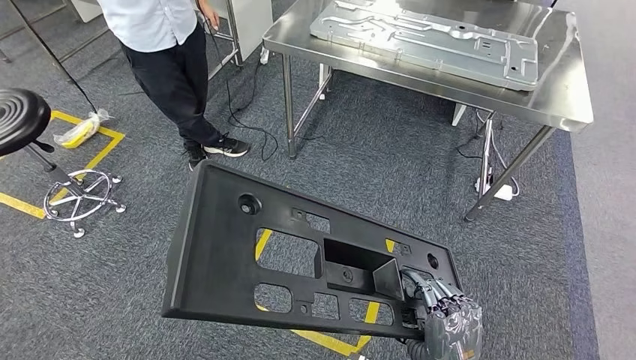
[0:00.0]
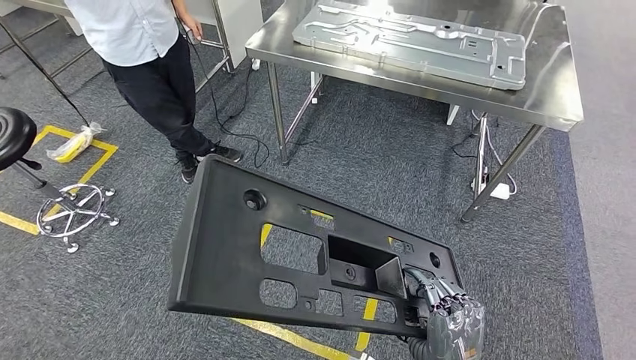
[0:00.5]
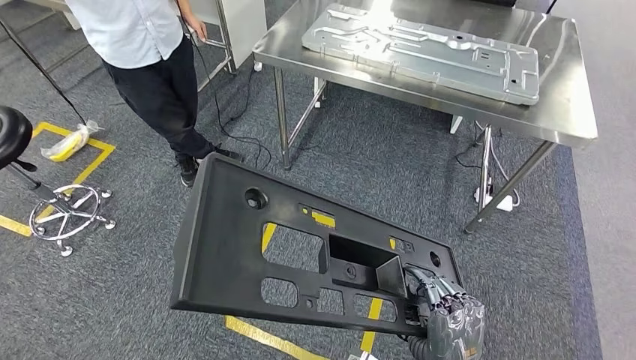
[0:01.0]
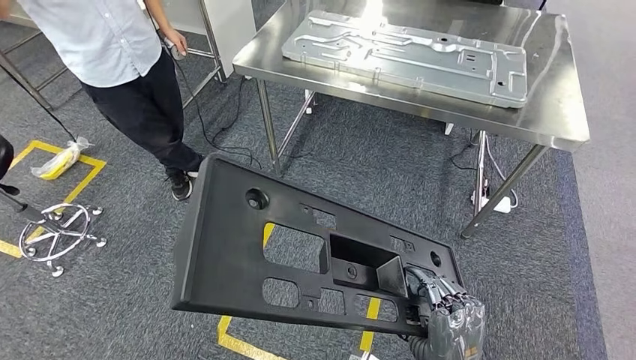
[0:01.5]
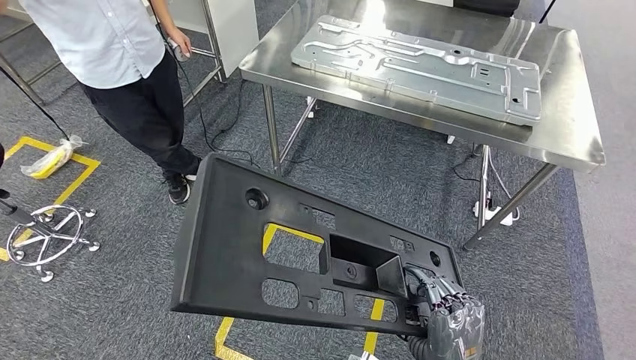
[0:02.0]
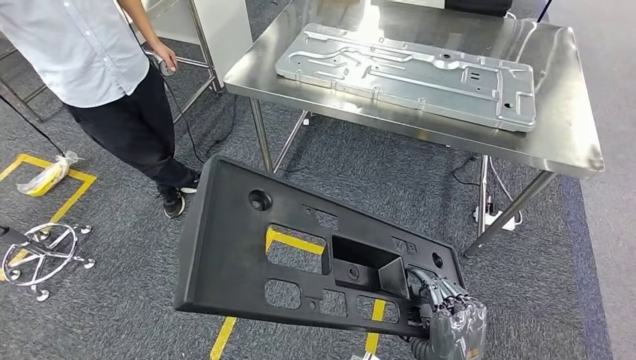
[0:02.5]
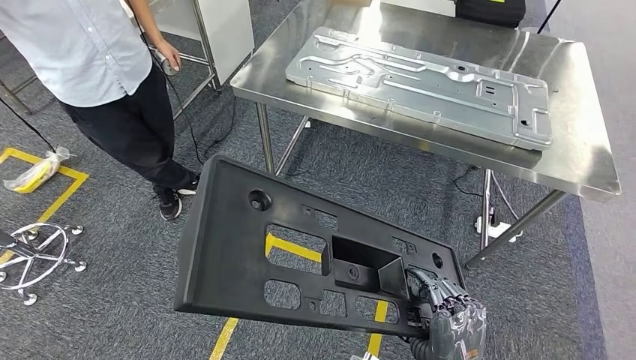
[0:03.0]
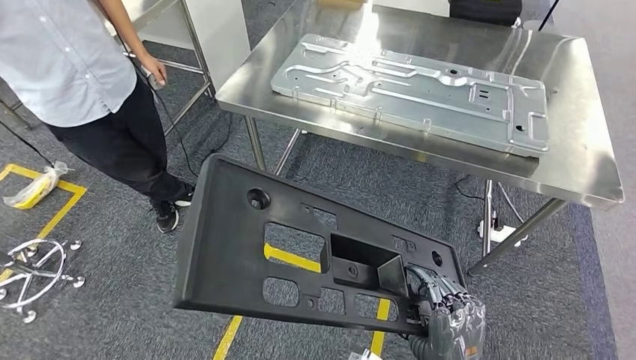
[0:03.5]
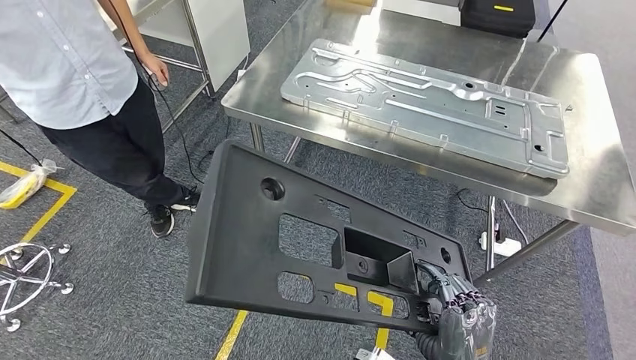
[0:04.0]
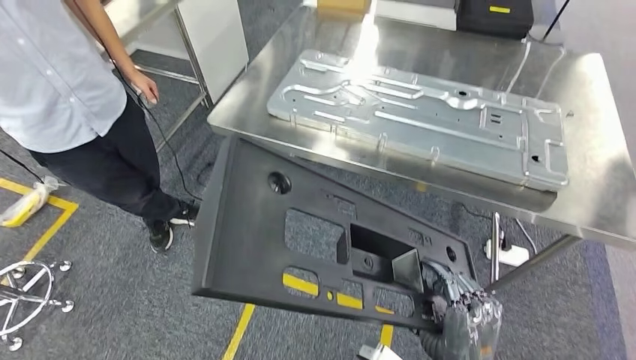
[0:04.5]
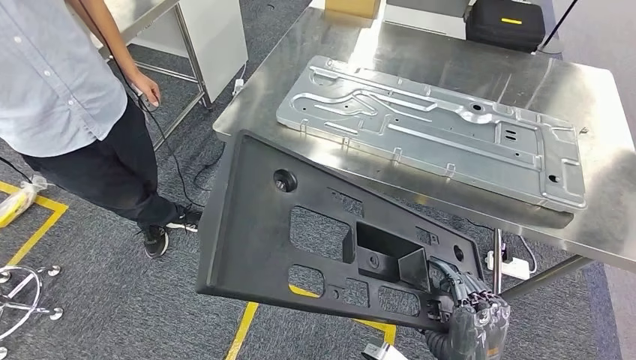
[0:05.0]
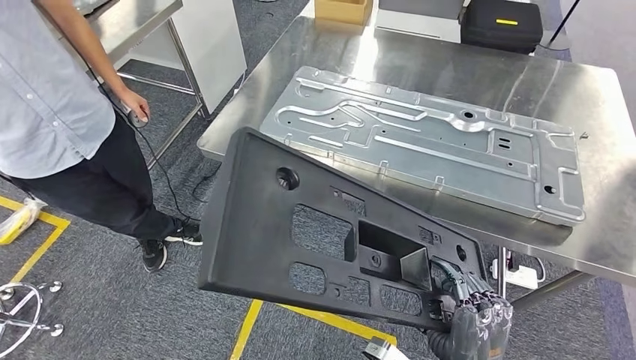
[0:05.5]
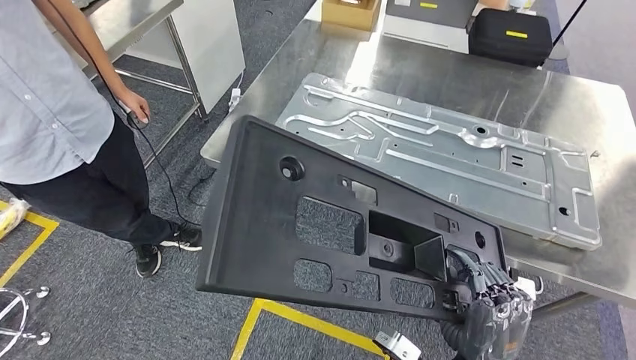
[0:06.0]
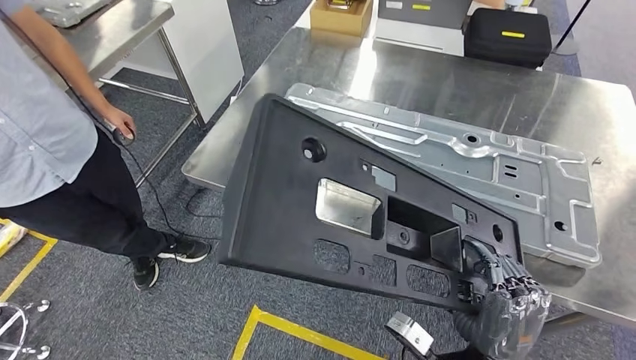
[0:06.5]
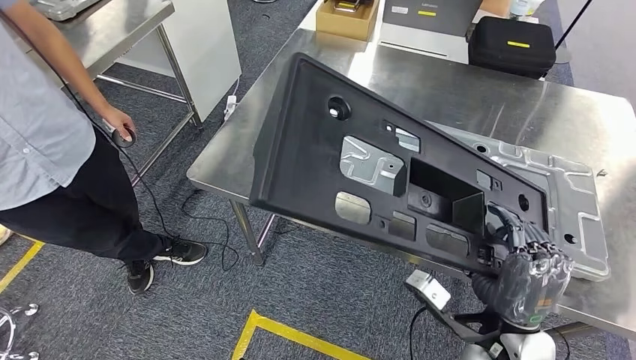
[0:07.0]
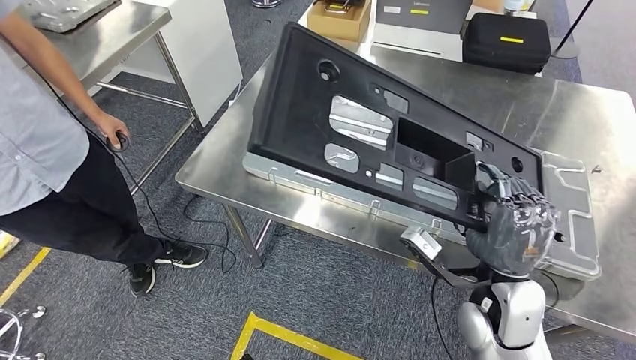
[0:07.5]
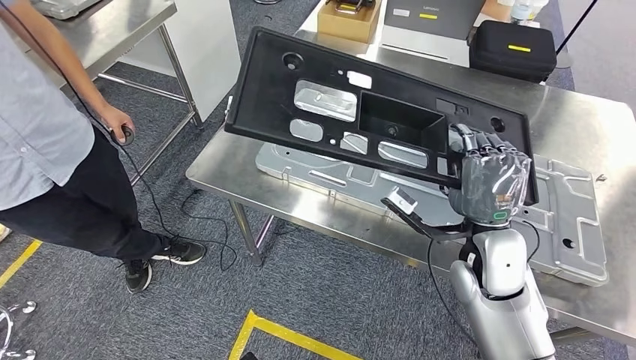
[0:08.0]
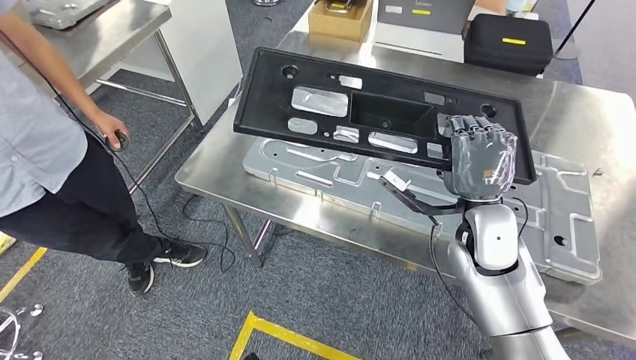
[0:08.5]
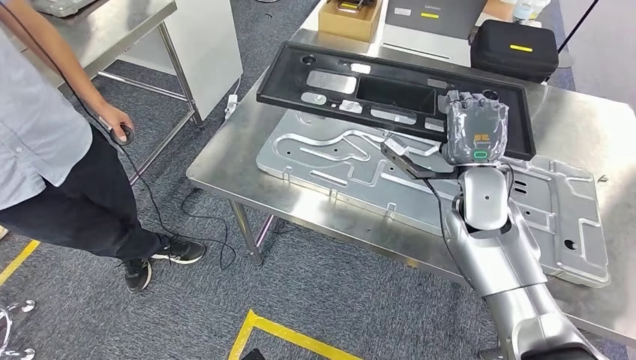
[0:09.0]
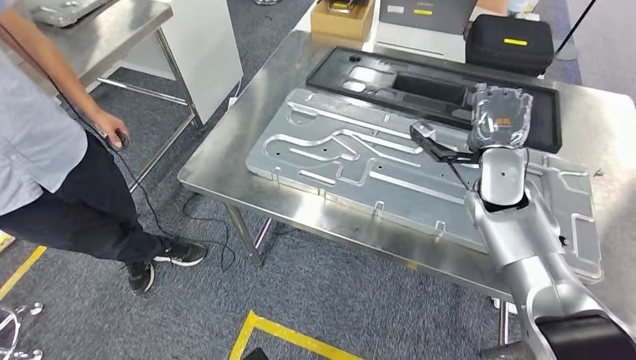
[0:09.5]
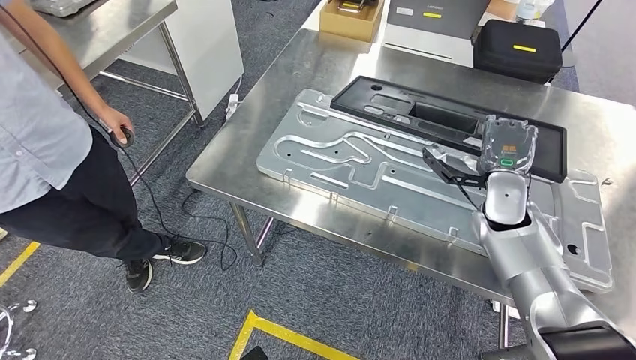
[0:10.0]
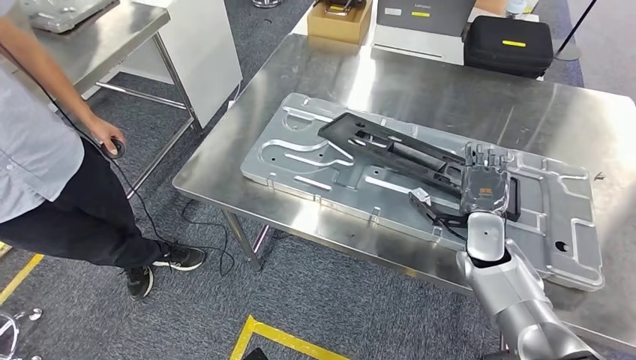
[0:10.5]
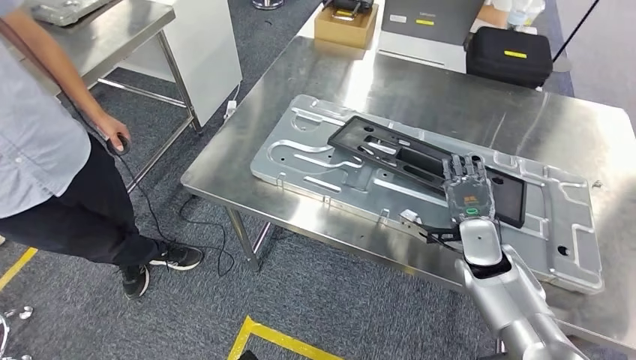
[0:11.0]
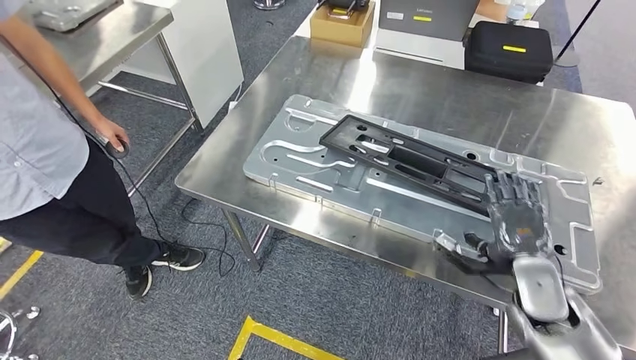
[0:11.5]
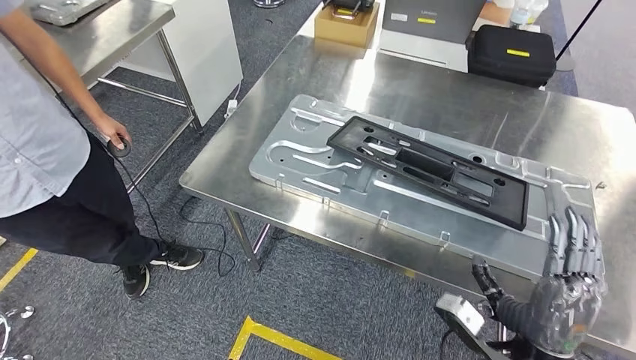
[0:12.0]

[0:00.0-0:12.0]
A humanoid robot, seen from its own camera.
Step, 0:00.0 to 0:05.5: Move the large material to the workbench.

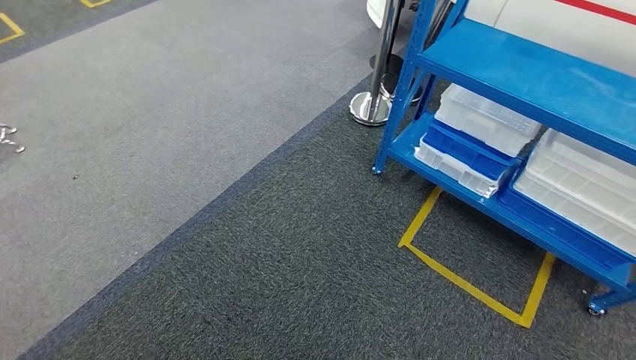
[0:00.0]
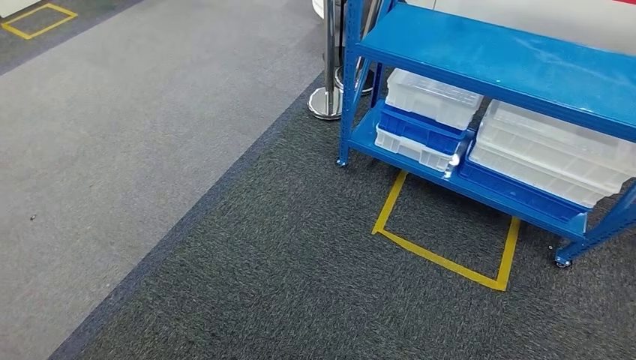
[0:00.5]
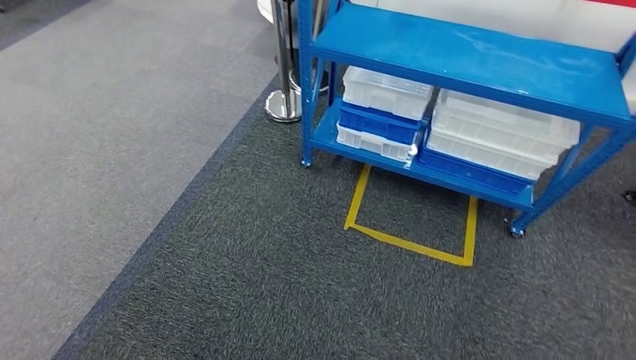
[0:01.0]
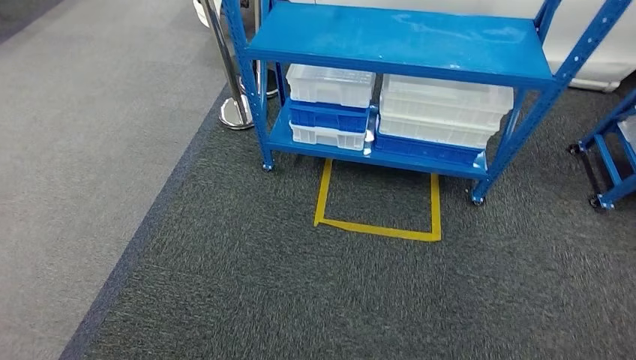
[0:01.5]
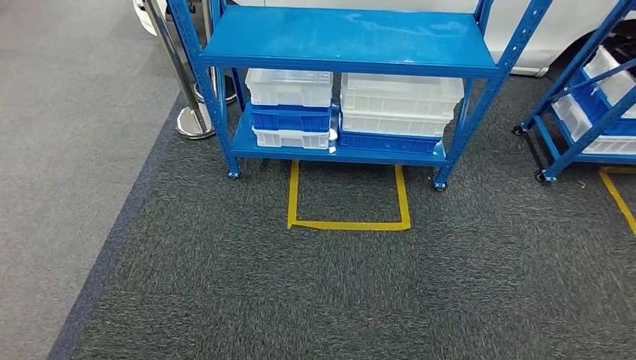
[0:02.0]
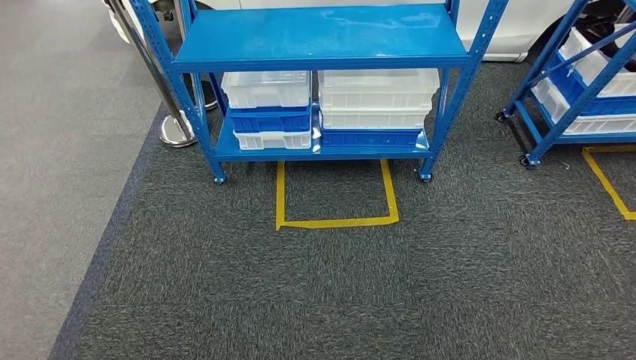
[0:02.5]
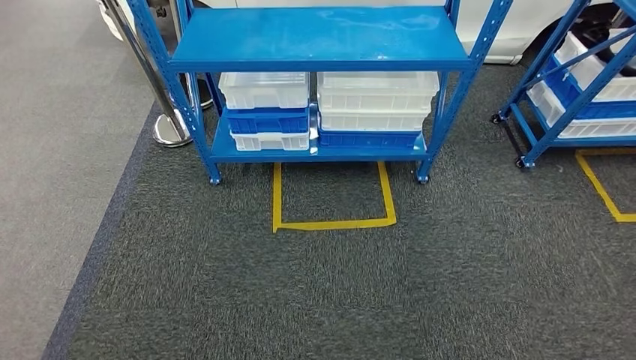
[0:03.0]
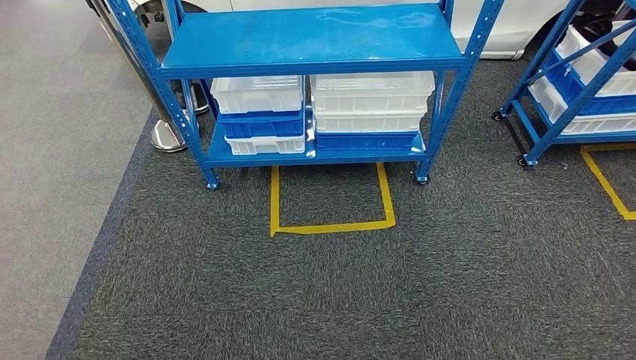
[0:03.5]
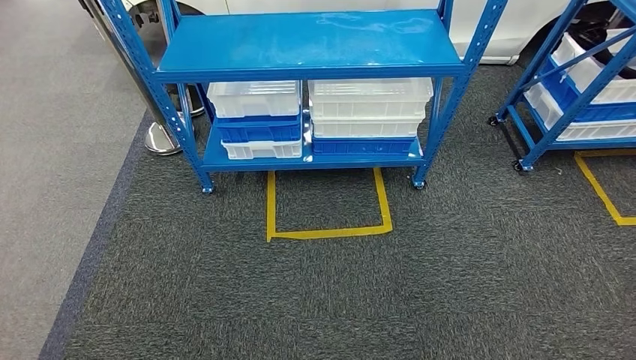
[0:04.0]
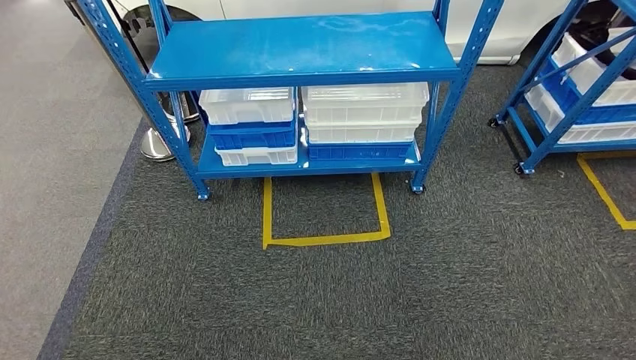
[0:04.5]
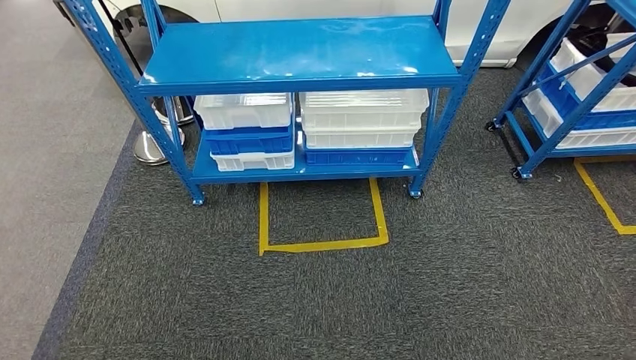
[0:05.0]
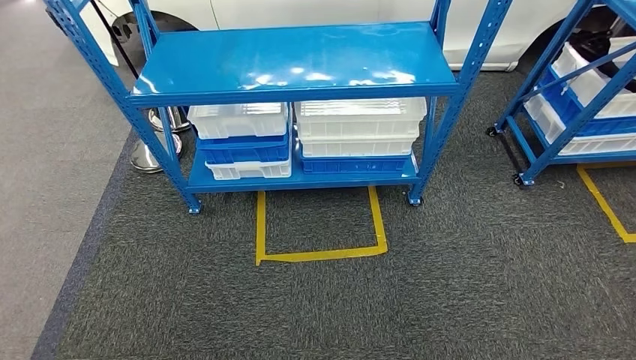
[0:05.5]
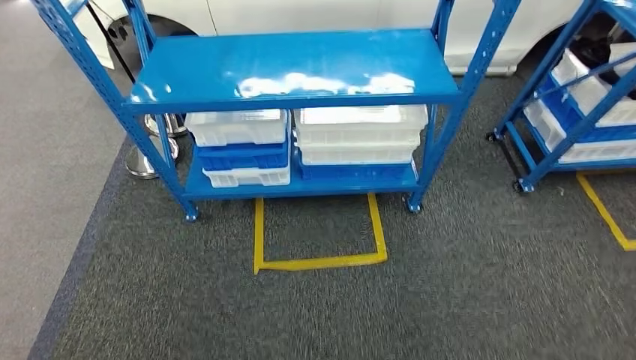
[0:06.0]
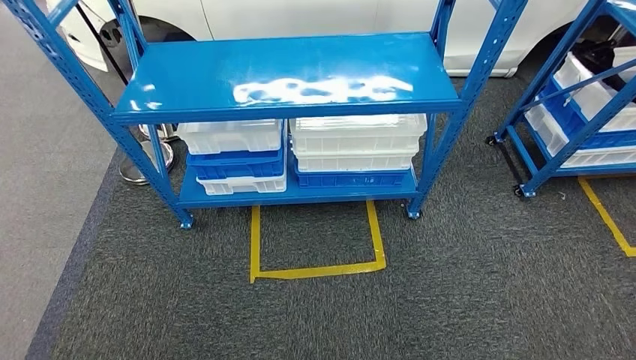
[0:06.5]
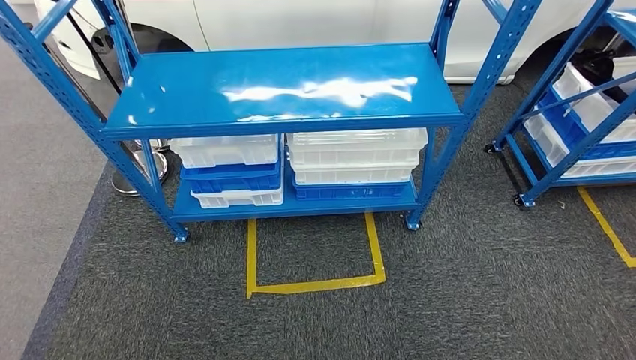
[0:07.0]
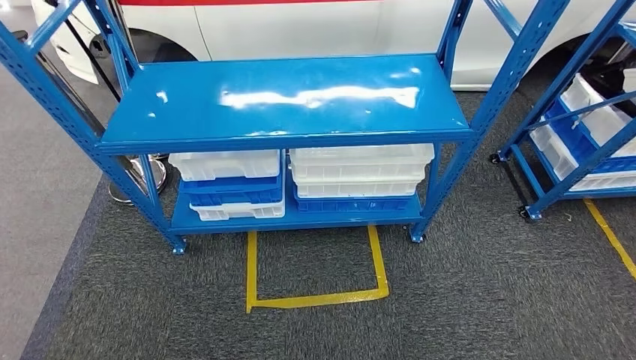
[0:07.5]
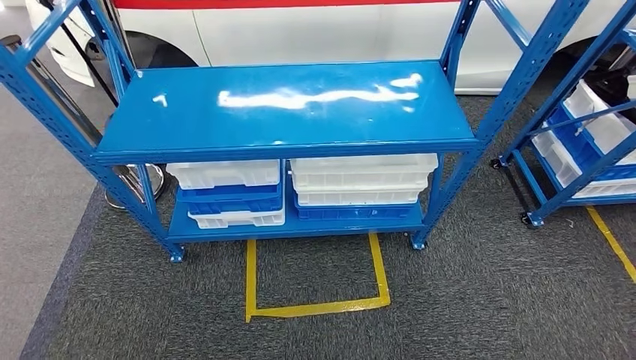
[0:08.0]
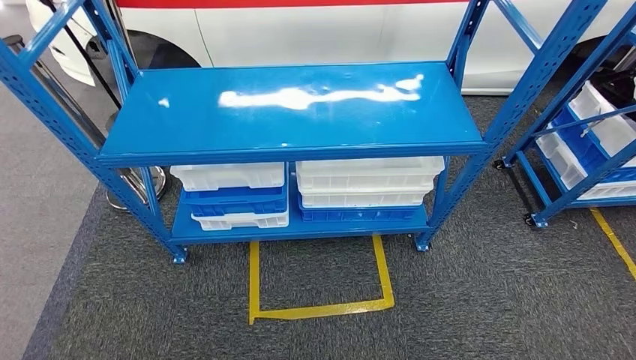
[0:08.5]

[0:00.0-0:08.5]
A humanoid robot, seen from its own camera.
Step, 0:00.0 to 0:08.5: Move to the initial position of the shelf.
